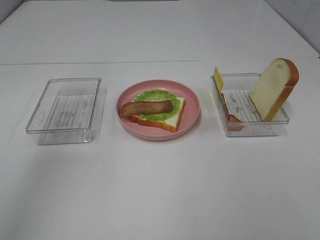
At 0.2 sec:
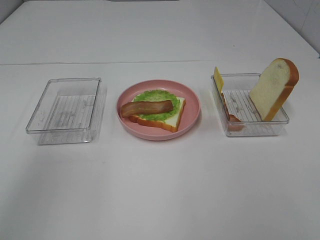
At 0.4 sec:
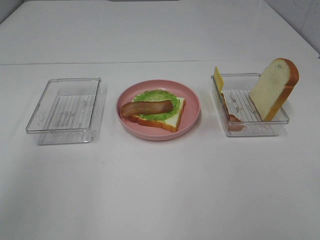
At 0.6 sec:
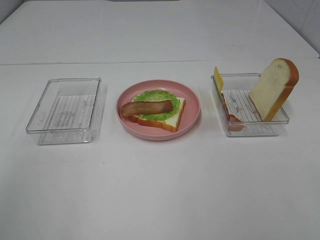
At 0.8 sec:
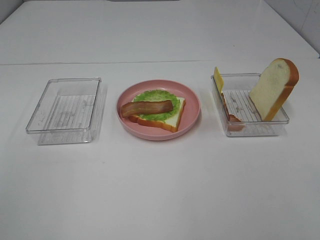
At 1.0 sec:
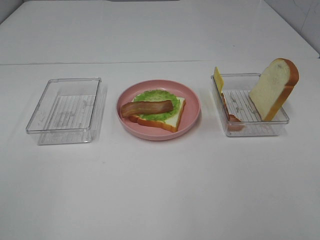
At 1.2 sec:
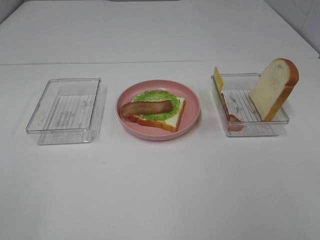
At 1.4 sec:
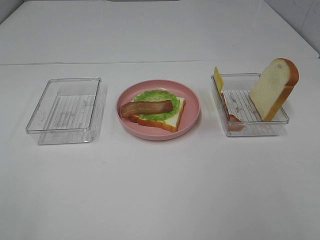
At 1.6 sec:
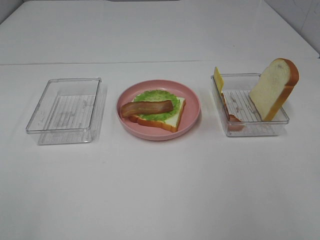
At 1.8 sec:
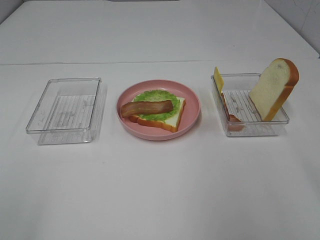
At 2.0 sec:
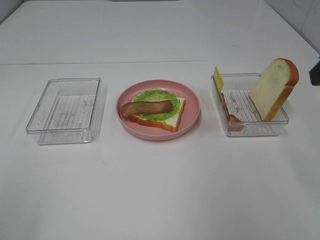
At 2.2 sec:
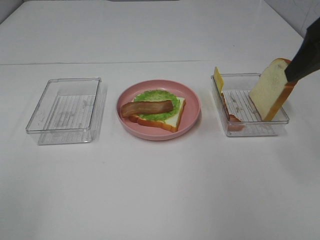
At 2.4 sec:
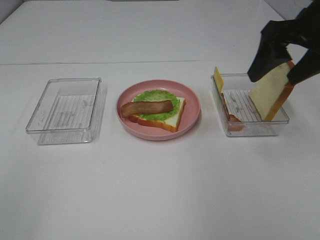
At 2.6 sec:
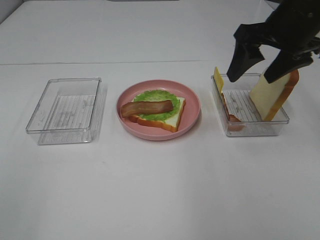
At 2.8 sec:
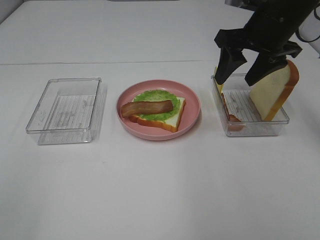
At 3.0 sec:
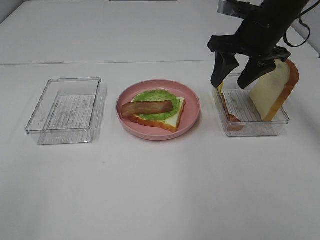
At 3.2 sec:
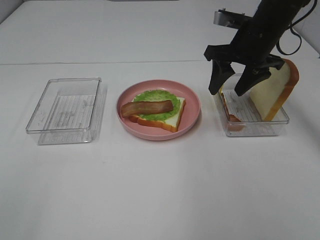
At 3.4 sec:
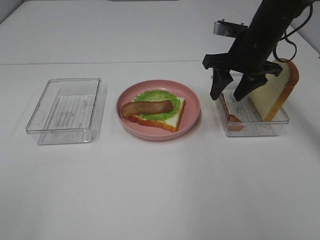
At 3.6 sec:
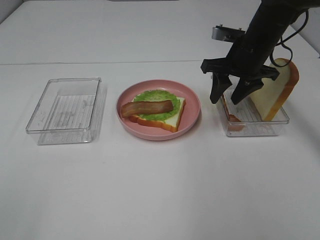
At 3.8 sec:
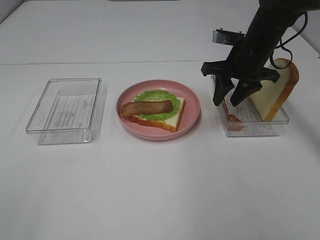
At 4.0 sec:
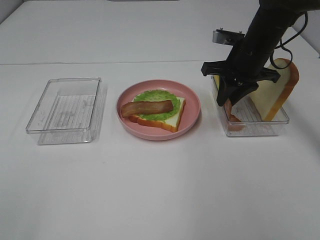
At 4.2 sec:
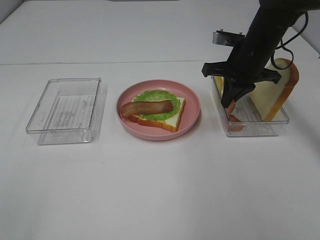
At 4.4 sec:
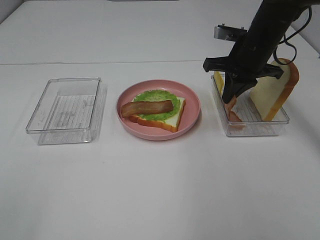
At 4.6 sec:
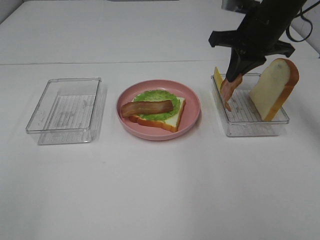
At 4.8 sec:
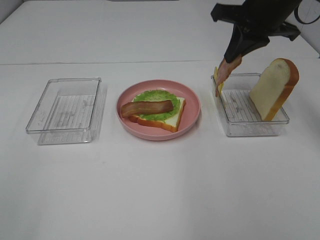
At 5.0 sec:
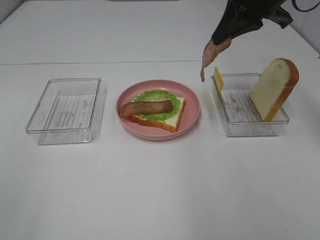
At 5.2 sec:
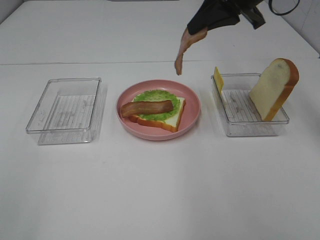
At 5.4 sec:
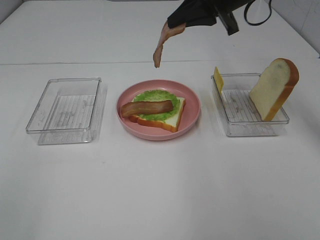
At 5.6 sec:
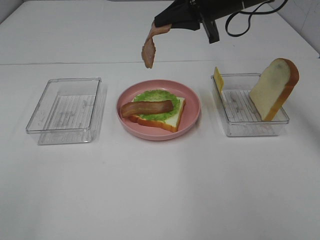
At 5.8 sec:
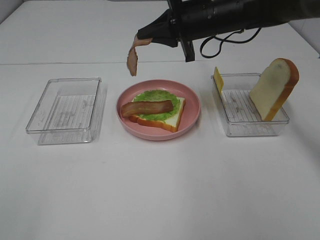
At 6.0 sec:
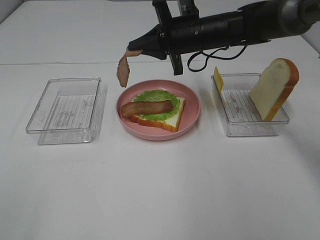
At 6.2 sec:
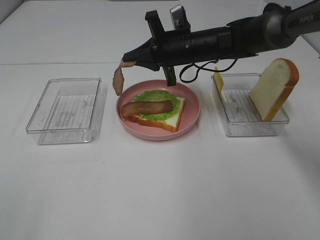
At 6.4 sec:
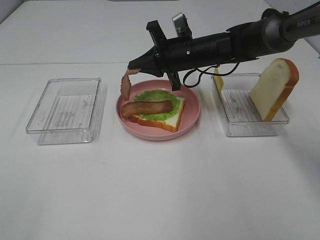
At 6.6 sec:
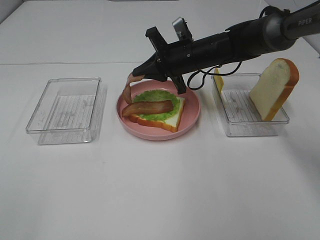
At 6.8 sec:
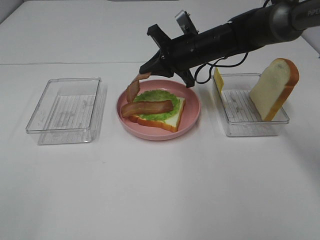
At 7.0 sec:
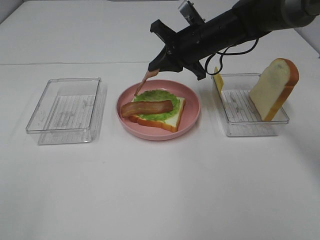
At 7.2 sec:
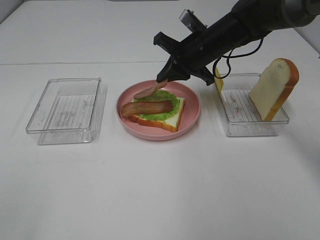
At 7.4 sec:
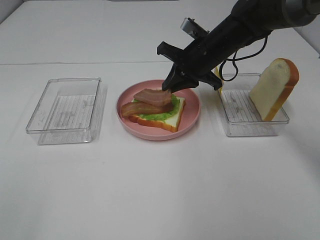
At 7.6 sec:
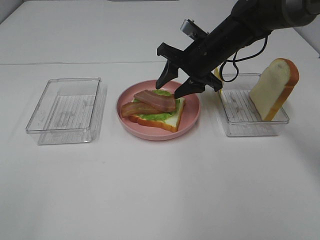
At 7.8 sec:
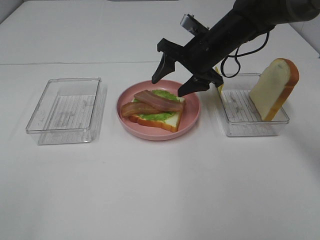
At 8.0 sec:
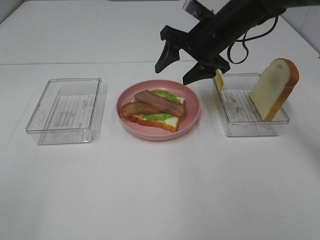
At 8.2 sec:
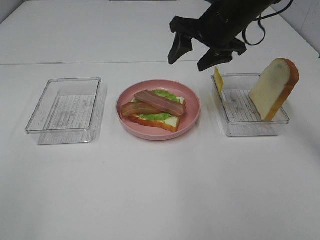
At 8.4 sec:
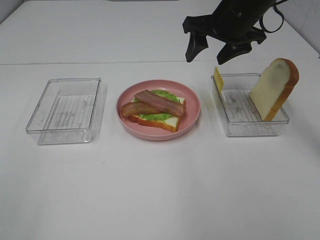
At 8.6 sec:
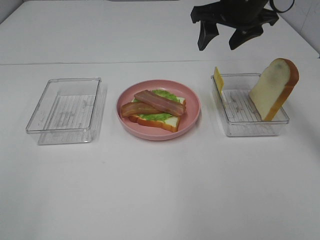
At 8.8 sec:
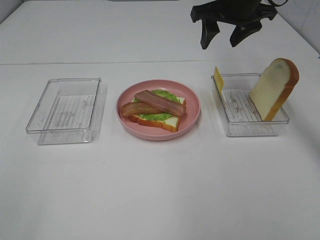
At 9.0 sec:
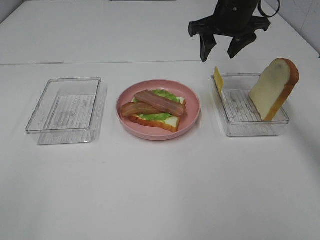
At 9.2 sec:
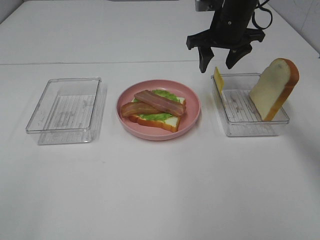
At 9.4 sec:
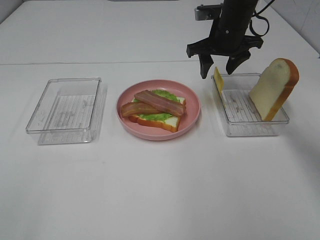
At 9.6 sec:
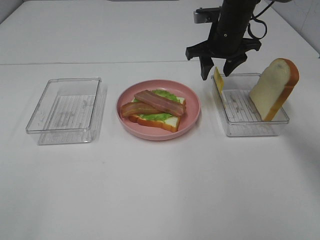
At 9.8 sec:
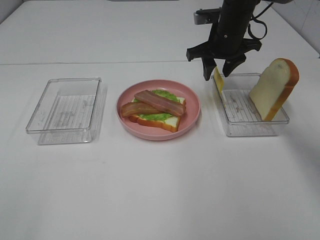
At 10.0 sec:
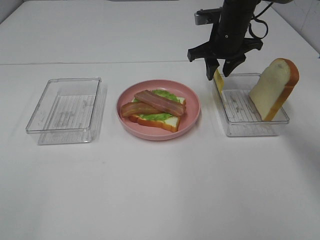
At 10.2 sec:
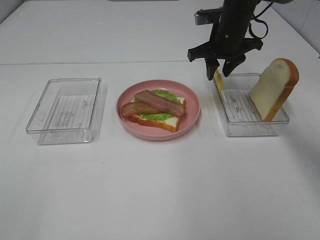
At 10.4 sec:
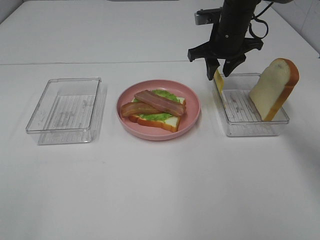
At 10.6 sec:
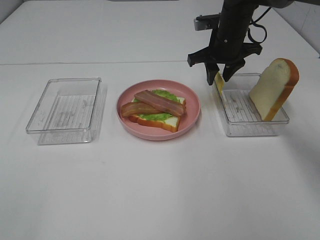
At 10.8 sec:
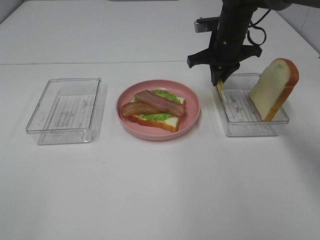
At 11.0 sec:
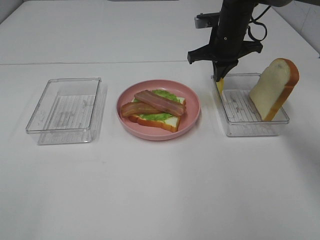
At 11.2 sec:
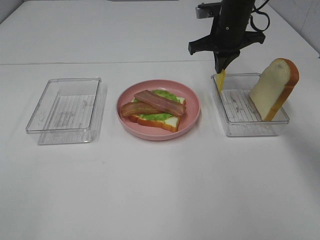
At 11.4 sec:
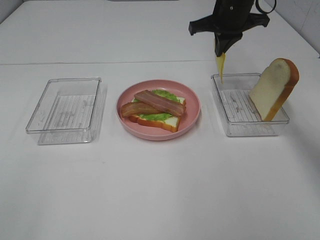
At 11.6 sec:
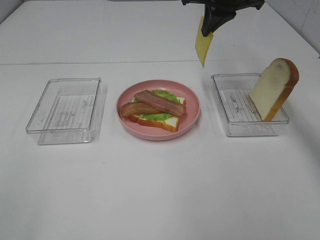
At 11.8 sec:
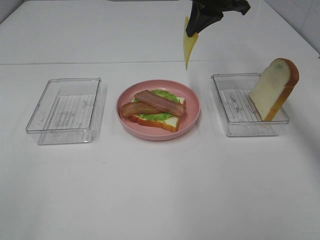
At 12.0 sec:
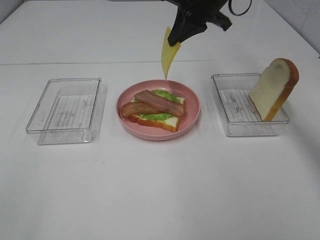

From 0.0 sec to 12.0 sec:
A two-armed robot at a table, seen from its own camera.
Task of the whole recording: Make sandwiches.
Step, from 0.0 sec to 4.2 sec: Right hand:grab the bacon.
Step, from 4.4 sec to 8.0 sec: Right hand:place bacon on bacon.
Step, from 8.2 sec to 11.2 sec: Right hand:grab the cheese slice.
From 0.0 sec to 1.6 sec: The left gripper moves backward and downward, some 30 cm.
From 1.6 sec to 3.0 sec: The right gripper shifts roughly 30 cm forward.
From 3.0 sec to 4.4 sec: The right gripper closes its fingers.
From 4.4 sec to 6.0 sec: The right gripper shifts approximately 10 cm to the left, and goes upward and returns, about 10 cm each way.
From 6.0 sec to 7.6 sec: The right gripper opens its fingers.
From 7.6 sec to 9.0 sec: The right gripper heads upward, covering some 10 cm.
From 9.0 sec to 10.4 sec: The right gripper shifts approximately 5 cm downward.
From 10.4 sec to 12.0 sec: The right gripper travels upward by about 10 cm, and closes its fingers.

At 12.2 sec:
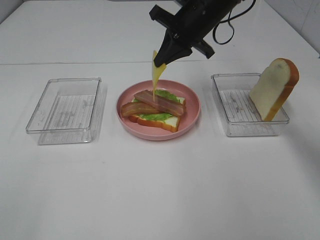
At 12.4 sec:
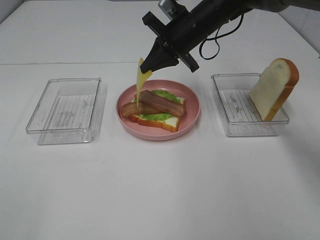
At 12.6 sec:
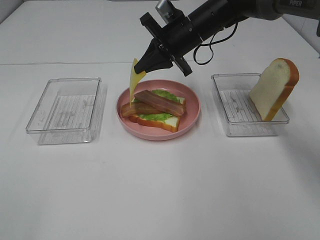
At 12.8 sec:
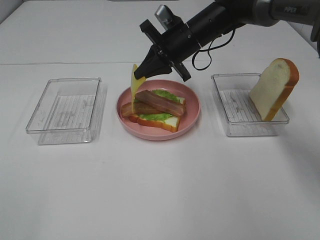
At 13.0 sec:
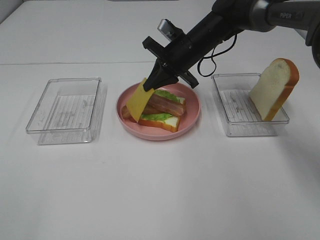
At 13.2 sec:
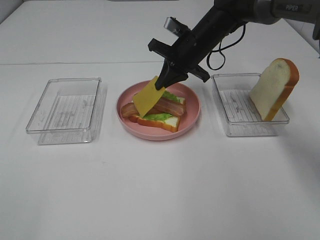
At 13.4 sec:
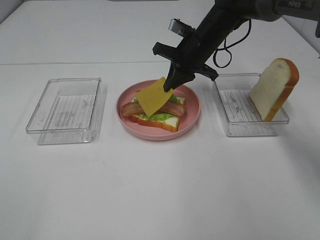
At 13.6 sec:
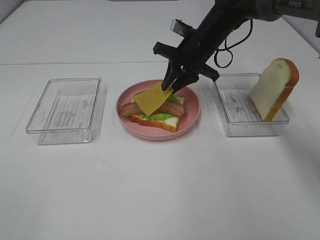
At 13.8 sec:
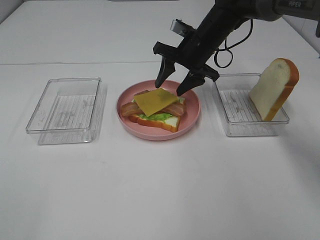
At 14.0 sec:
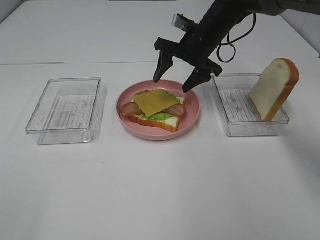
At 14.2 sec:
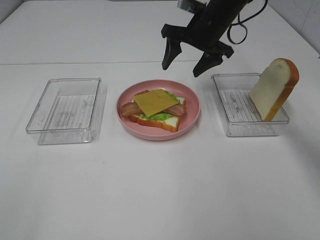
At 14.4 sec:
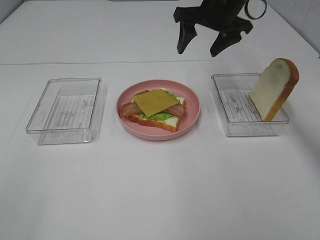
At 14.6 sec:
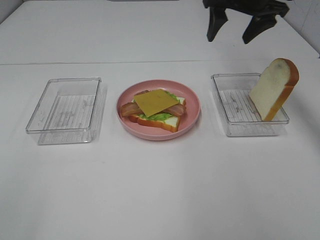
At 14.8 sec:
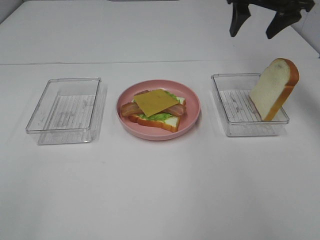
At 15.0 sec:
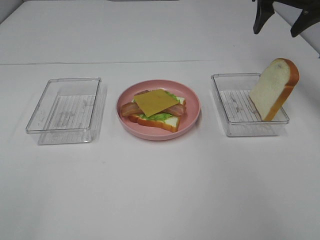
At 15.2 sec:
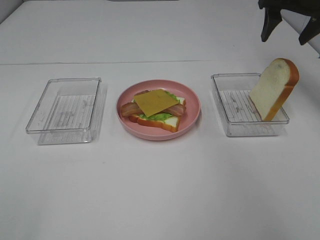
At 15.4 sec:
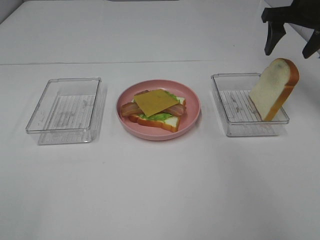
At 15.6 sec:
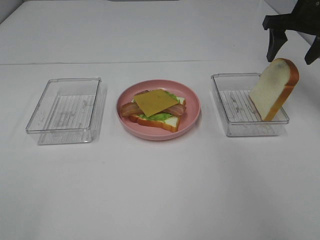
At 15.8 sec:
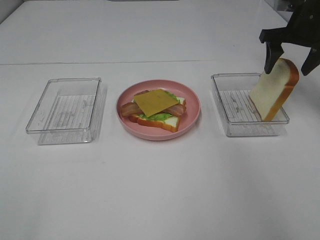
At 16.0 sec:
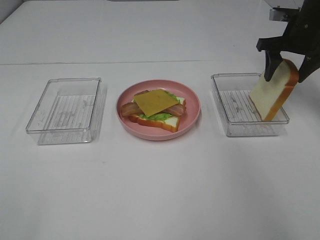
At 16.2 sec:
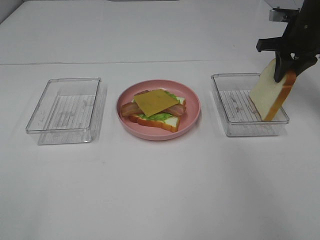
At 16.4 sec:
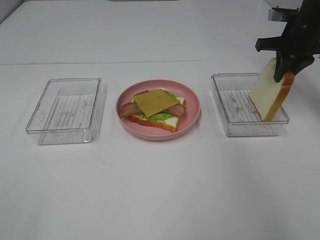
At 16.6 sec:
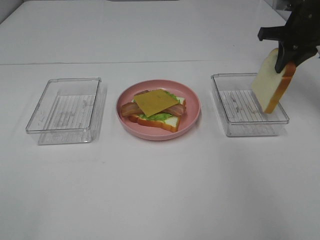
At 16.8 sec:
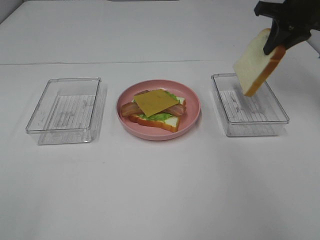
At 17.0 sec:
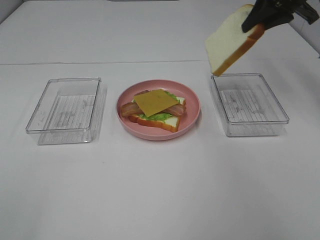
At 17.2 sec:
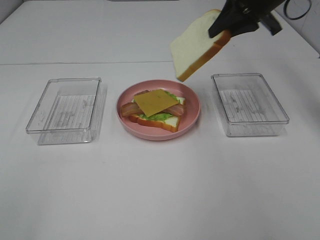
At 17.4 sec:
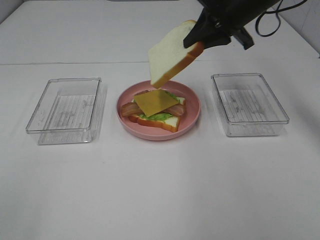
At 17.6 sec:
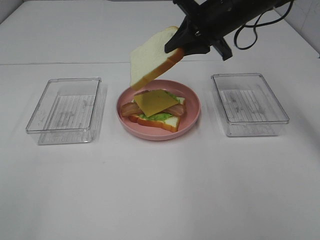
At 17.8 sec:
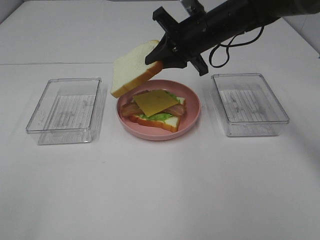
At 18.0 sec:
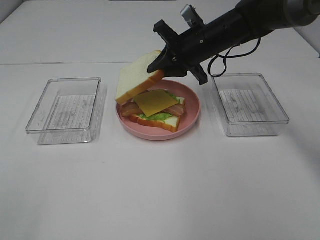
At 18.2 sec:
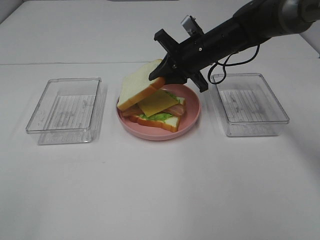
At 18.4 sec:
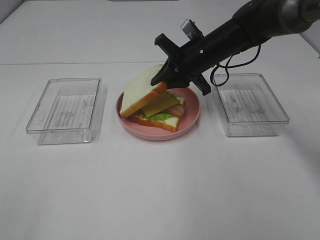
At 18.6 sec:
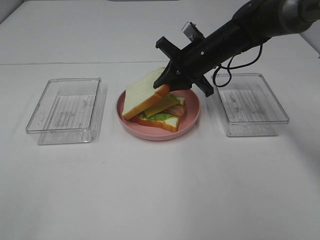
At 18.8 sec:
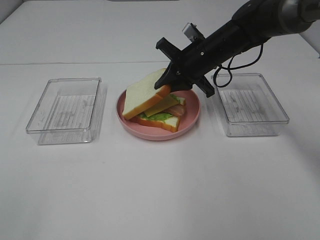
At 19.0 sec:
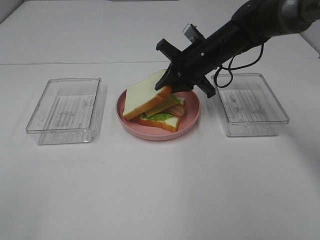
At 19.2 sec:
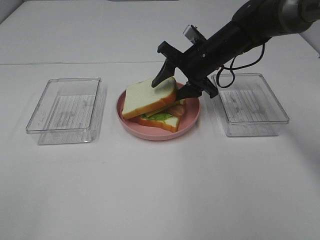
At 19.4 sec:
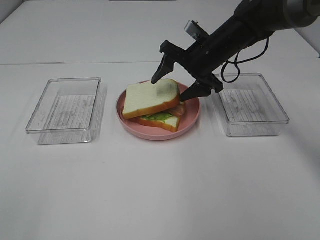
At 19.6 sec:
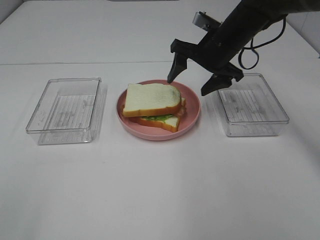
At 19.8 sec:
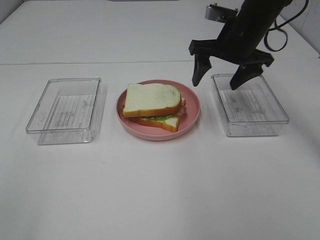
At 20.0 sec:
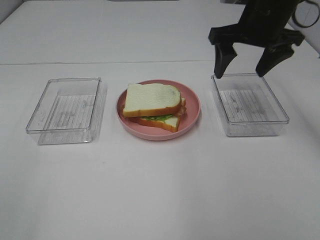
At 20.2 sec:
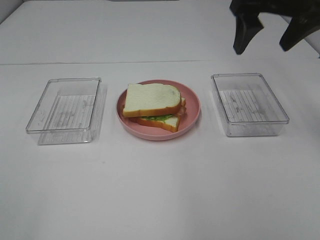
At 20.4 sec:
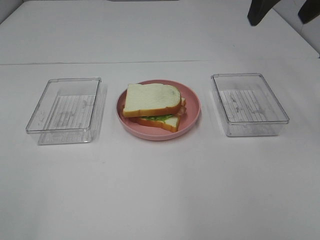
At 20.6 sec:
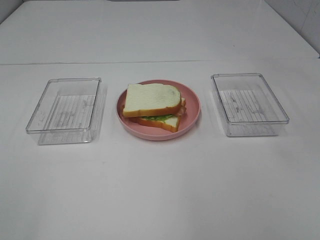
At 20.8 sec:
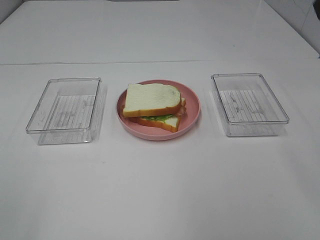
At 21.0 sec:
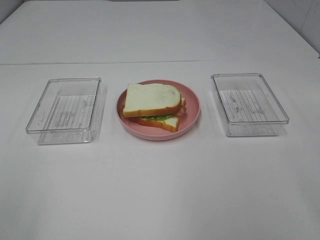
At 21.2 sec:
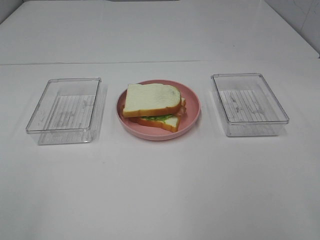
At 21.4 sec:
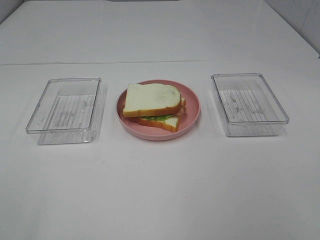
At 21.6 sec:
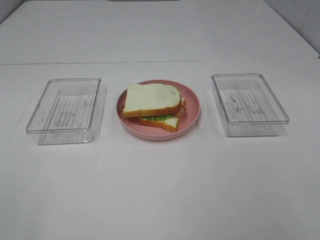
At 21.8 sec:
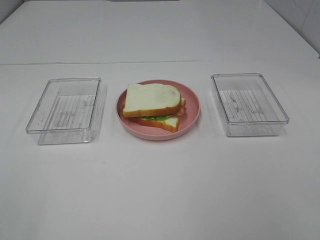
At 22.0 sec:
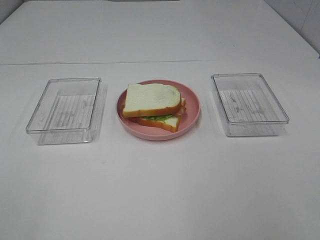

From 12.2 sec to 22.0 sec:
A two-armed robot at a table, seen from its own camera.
Task of the whole recording: Make sandwiches.
Step, from 12.2 sec to 14.0 sec: Right hand:place the cheese slice on top of the bacon.
Step, from 14.2 sec to 16.4 sec: Right hand:grab the bread slice.
Step, from 16.6 sec to 19.8 sec: Right hand:place the bread slice on the cheese slice.
From 12.2 sec to 13.6 sec: The right gripper travels downward by roughly 5 cm.
From 13.6 sec to 15.0 sec: The right gripper moves to the right and upward, roughly 20 cm, and opens.
From 15.0 sec to 16.4 sec: The right gripper heads downward, covering roughly 10 cm, and closes.
From 16.4 sec to 17.8 sec: The right gripper travels to the left by some 20 cm.
From 17.8 sec to 19.2 sec: The right gripper opens up.
From 19.2 sec to 20.6 sec: The right gripper goes roughly 30 cm upward and backward.
